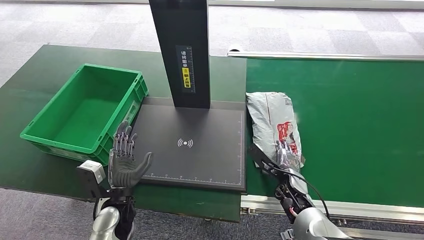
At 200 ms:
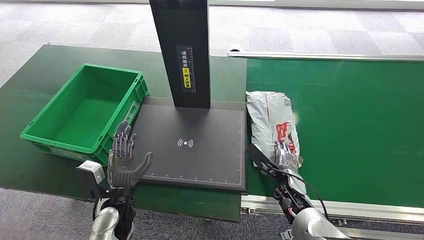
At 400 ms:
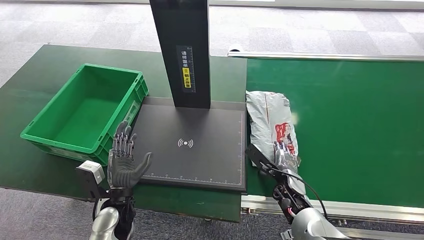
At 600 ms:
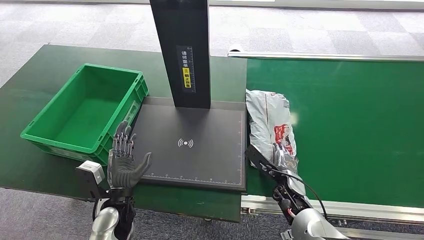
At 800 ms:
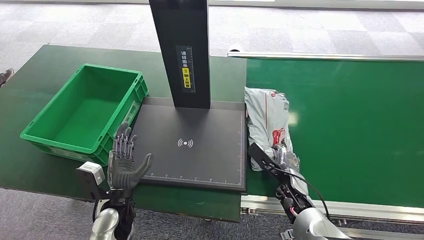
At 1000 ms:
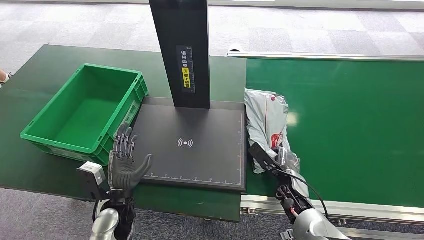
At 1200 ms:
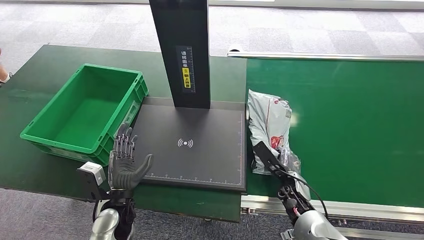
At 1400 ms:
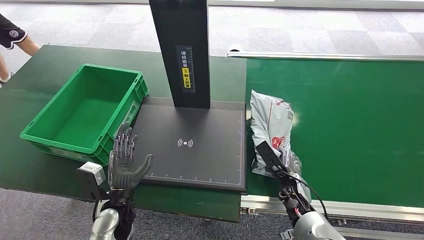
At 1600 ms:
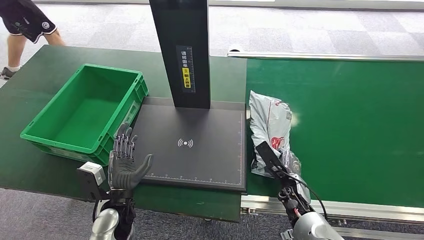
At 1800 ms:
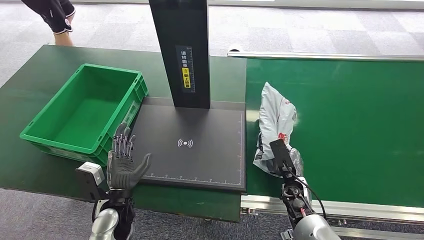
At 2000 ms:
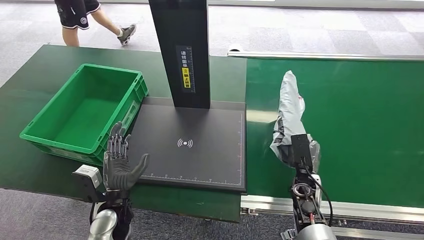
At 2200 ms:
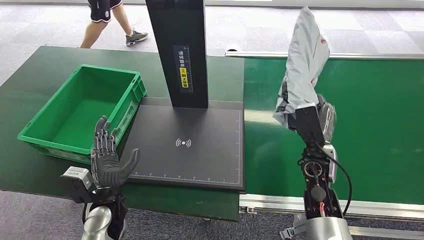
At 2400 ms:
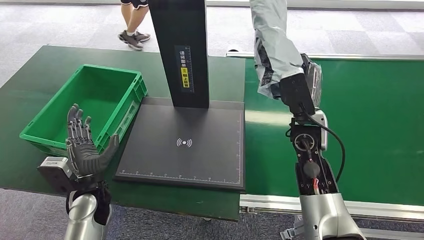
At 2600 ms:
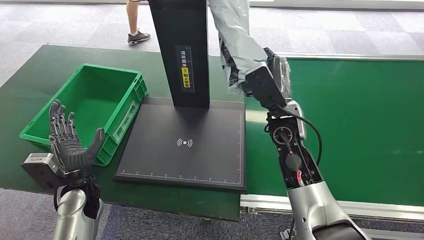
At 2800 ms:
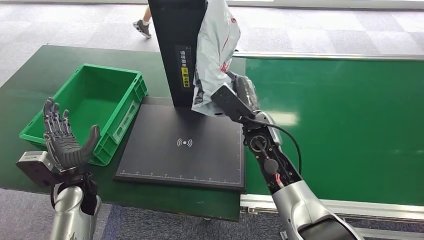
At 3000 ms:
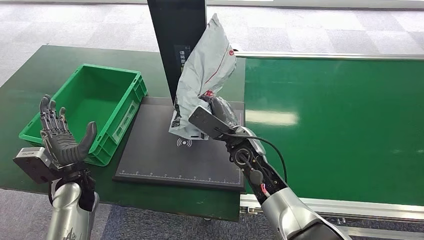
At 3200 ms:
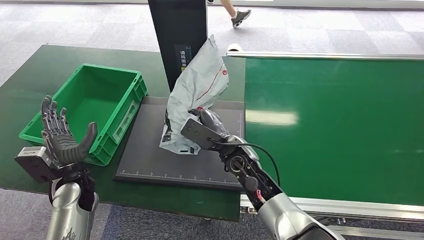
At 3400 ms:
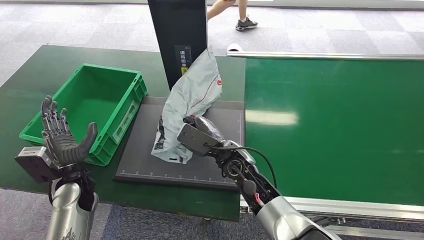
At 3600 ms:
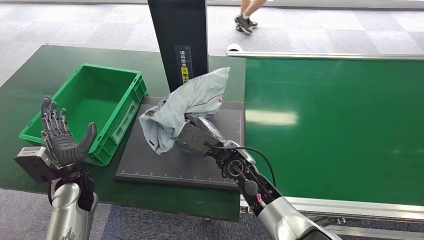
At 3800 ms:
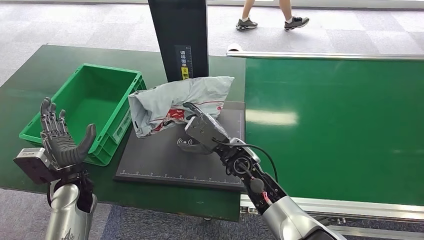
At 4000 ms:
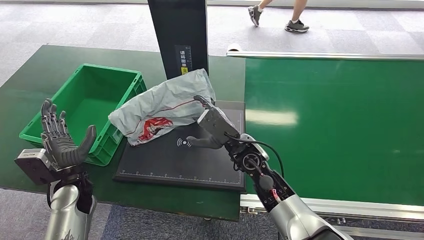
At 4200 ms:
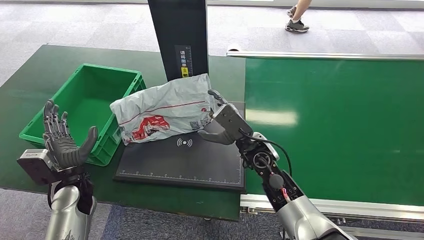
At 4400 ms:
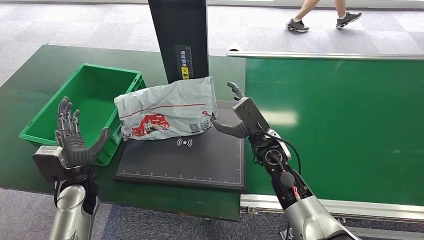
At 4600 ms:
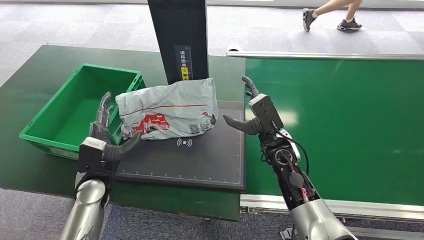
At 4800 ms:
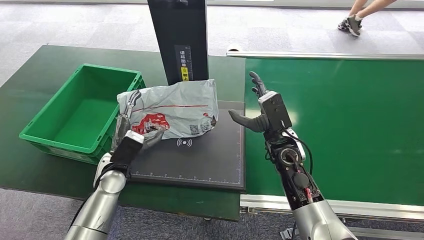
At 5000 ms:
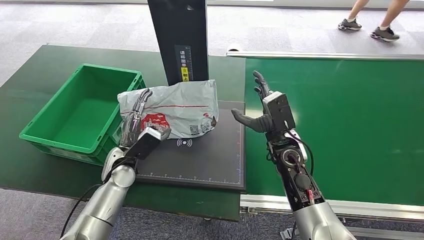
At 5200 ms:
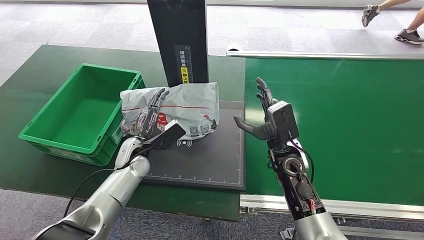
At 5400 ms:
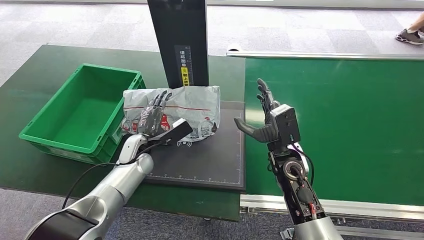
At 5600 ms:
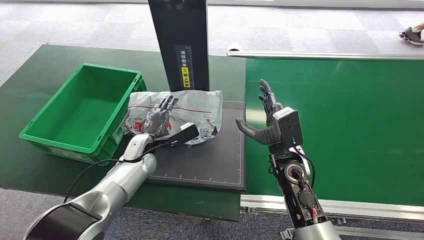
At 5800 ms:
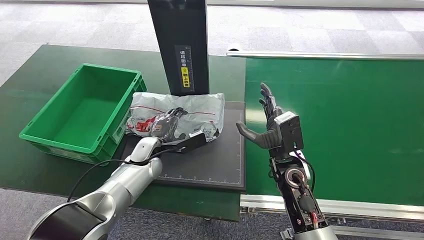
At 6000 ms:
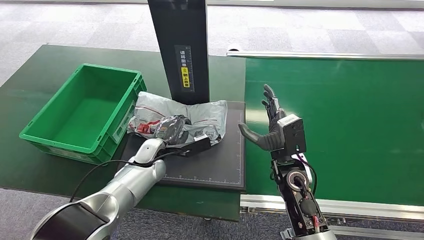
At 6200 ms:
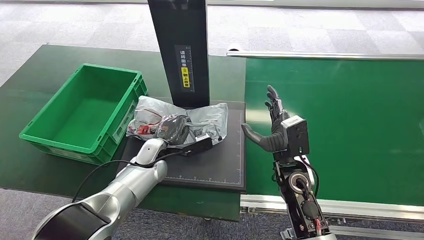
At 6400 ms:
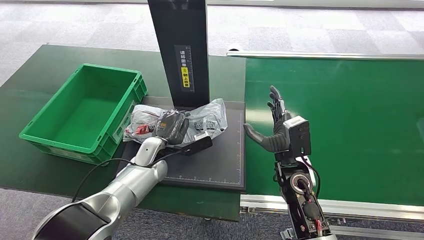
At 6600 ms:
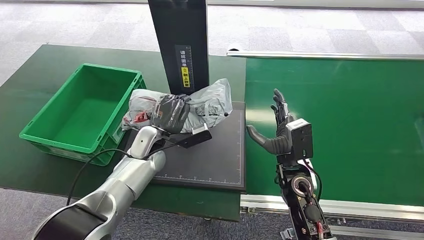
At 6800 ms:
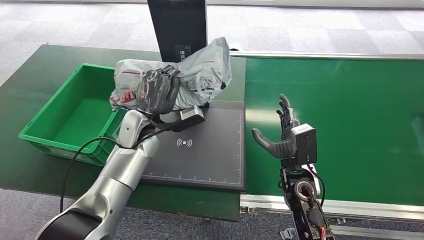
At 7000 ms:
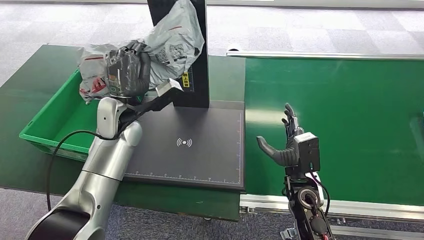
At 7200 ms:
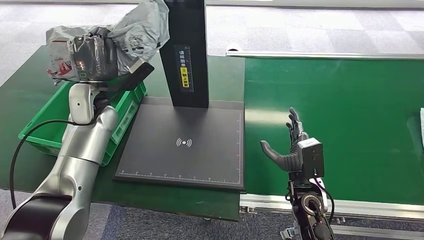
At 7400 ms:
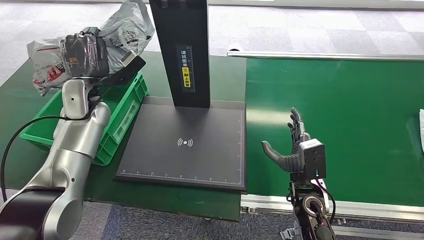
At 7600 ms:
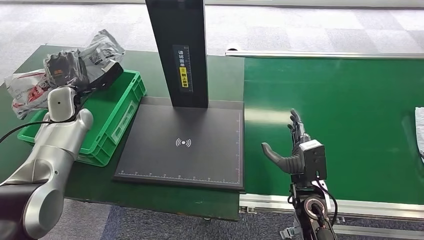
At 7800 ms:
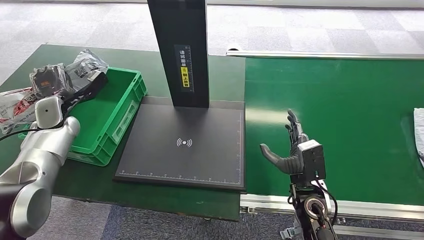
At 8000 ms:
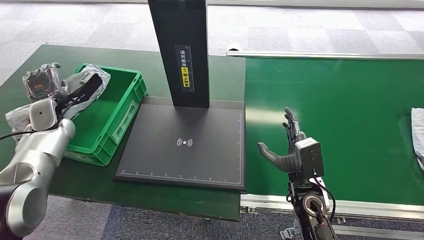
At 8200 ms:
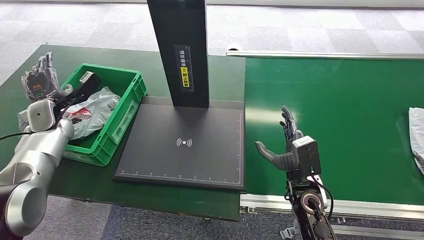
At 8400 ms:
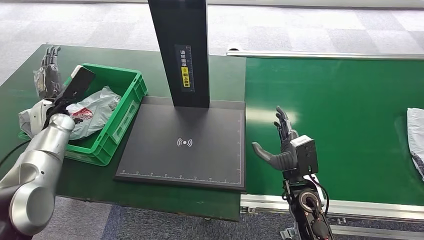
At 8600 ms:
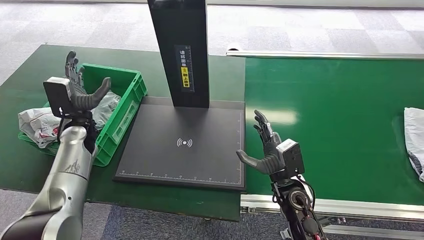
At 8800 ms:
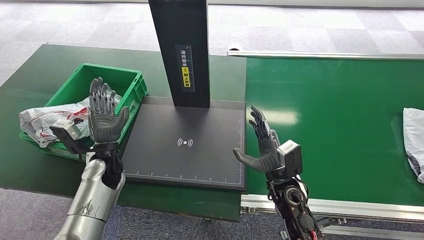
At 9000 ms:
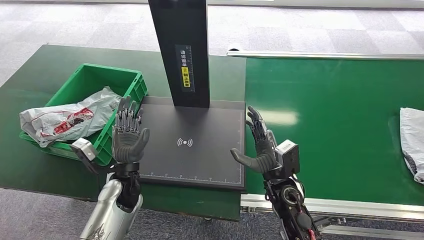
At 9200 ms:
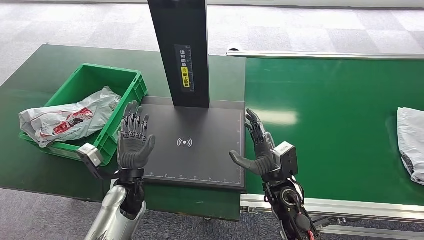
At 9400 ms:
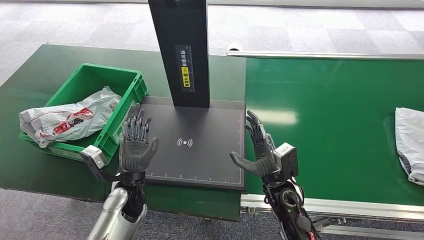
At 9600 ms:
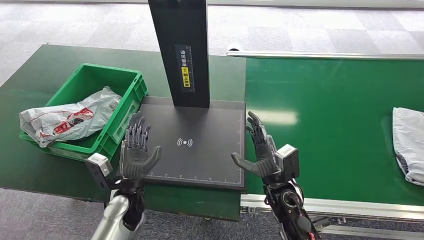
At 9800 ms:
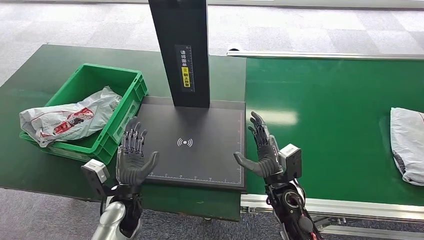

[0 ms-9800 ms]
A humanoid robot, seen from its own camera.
Task of the whole recording: Weigh the package on the weighing device and place it in the left basket.
Step, 0 ms to 2600 ms: Pick up the package from the conveyor belt.
Step, 3000 ms to 5000 ms: Place the package onto the inbound machine.
Step, 5400 ms to 7400 ms: Pick up the package from the inbound machine.
Step, 7800 ms to 9800 ms: Place the package into the parcel locker.
0 ms to 1400 ms: The hands make only small movements.
2800 ms to 4200 ms: The right hand travels downward by approximately 5 cm.
4200 ms to 5600 ms: The right hand goes approximately 5 cm to the right, while the left hand shifts roughly 15 cm to the right and forward.
8400 ms to 9800 ms: The left hand travels to the right, backward and downward by approximately 30 cm.
